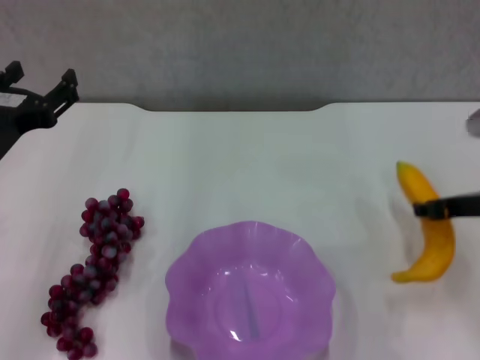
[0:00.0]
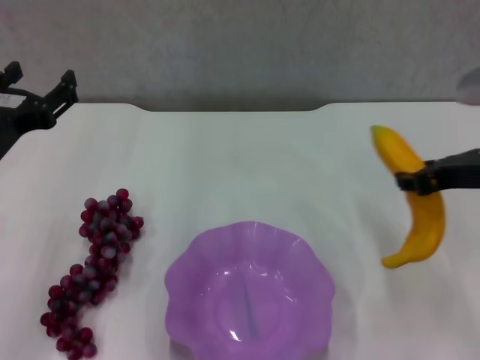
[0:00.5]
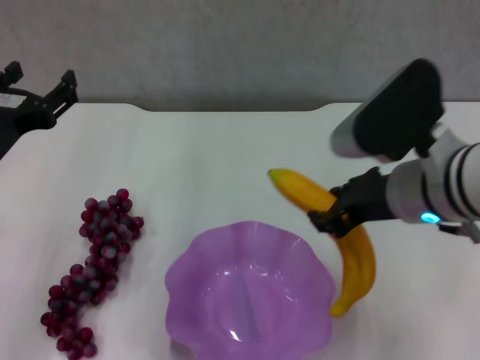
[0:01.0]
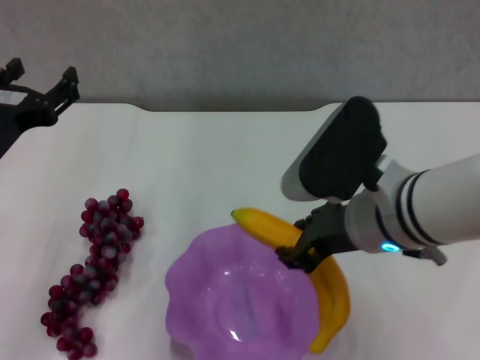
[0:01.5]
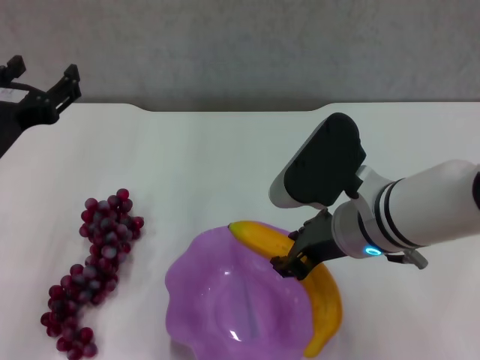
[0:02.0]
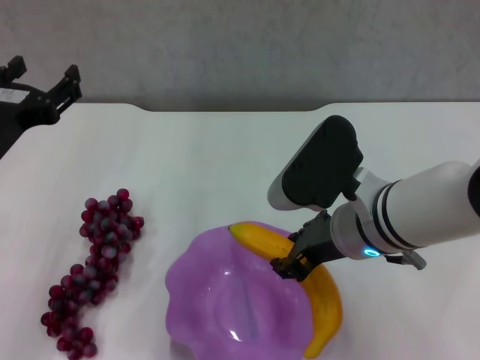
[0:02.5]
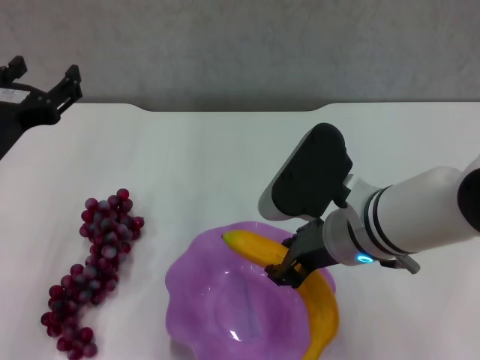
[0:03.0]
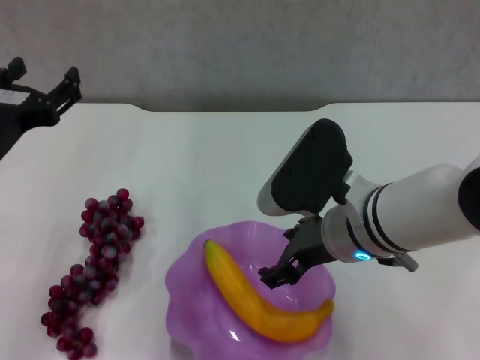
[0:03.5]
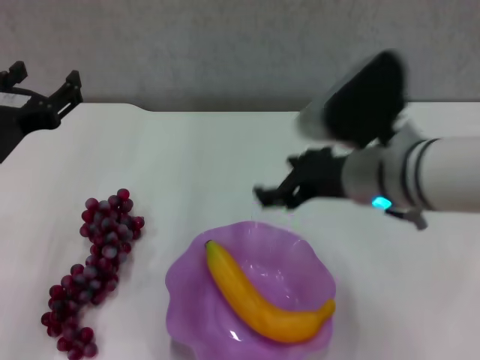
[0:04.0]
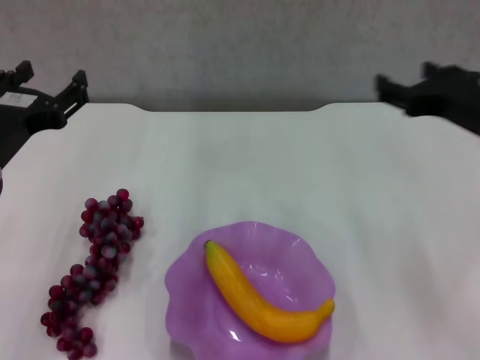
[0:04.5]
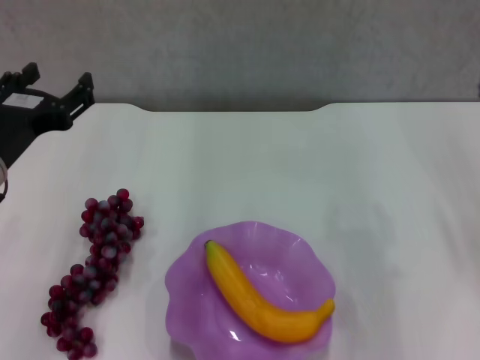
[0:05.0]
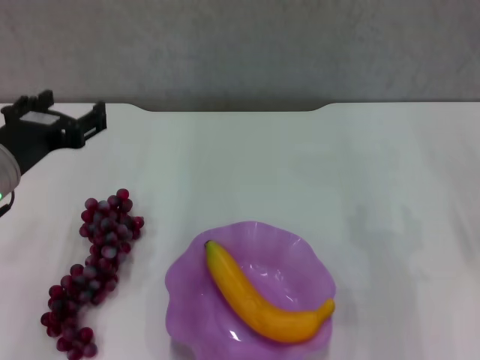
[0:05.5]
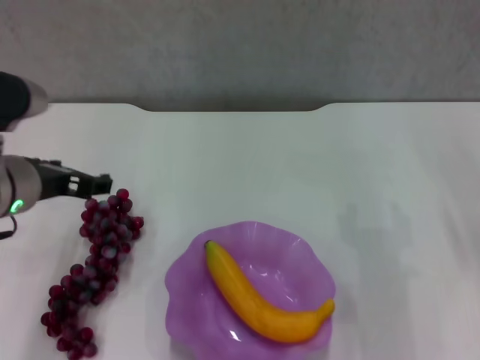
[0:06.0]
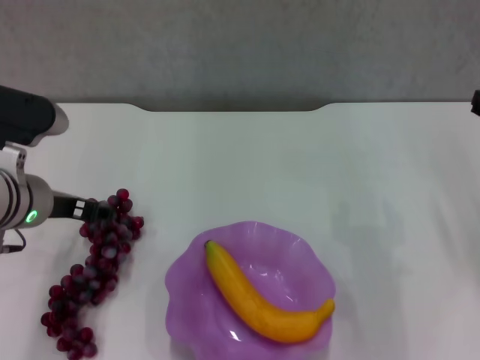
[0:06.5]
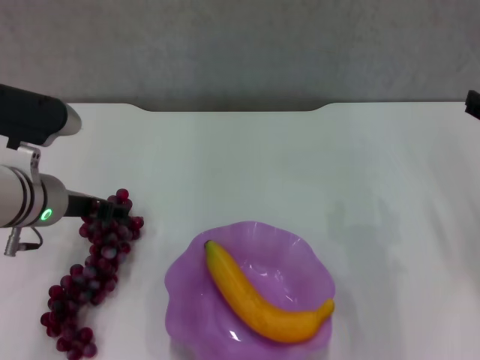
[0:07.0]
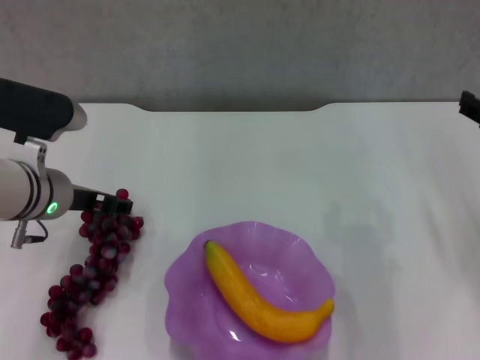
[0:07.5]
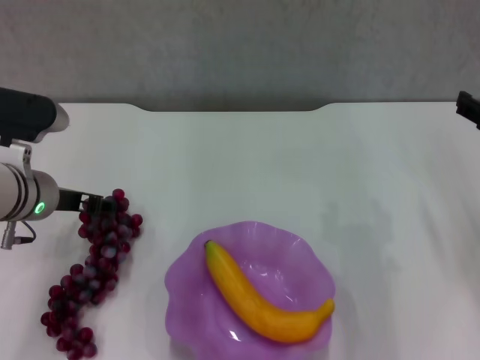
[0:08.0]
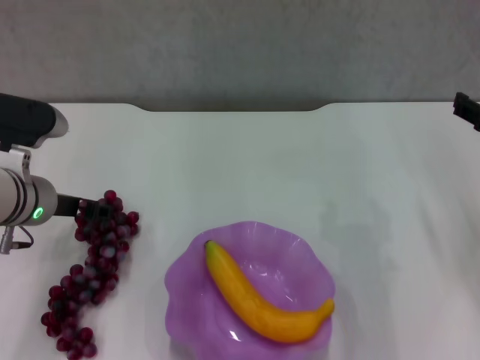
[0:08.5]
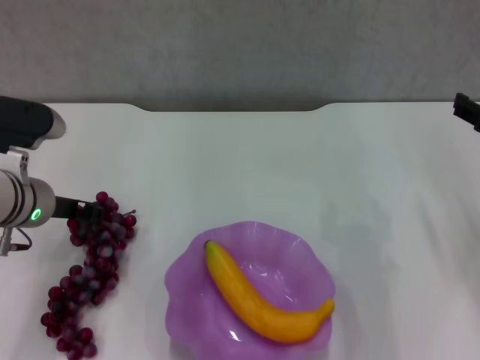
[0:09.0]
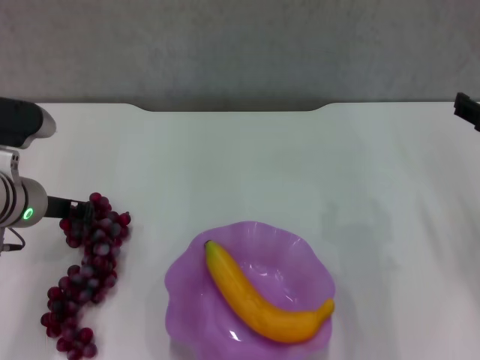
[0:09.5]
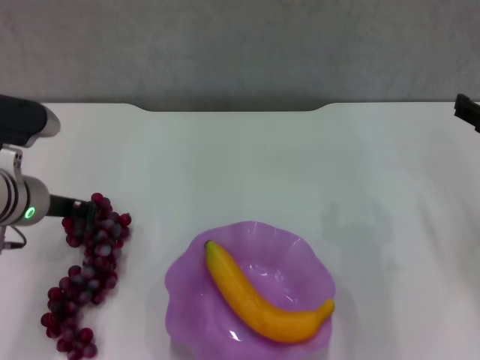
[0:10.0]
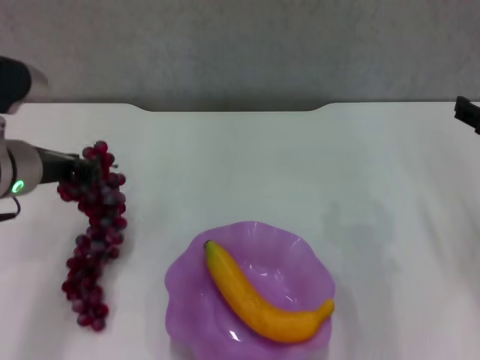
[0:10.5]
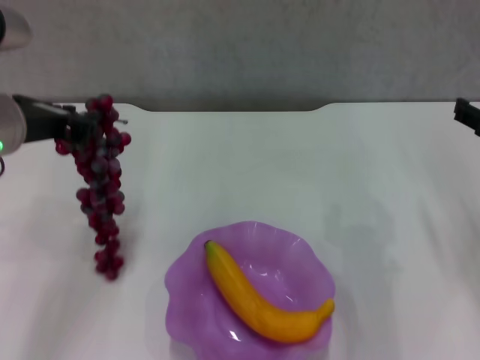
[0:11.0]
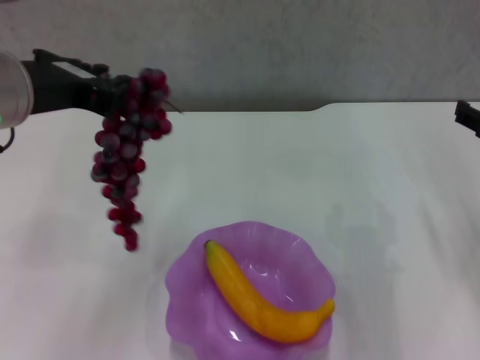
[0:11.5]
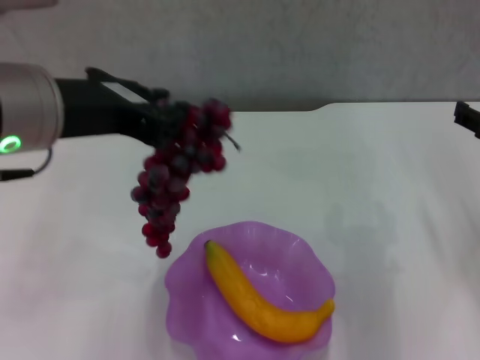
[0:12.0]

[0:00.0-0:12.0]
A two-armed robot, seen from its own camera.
Step, 0:00.0 to 0:03.0: Place the banana in the purple plate with right gripper.
Step, 0:04.0 to 0:09.5: Grasp the grape with left gripper.
0:00.0 to 0:02.0: The right gripper heads to the left, covering approximately 15 cm.
0:02.0 to 0:04.0: The right gripper opens its fingers.
0:04.0 to 0:06.0: The right gripper heads to the right, covering about 20 cm.
0:06.0 to 0:08.0: The left gripper is displaced downward by roughly 5 cm.
0:08.0 to 0:10.0: The left gripper closes its fingers.
0:10.0 to 0:12.0: The left gripper shifts some 20 cm upward, backward and to the right.

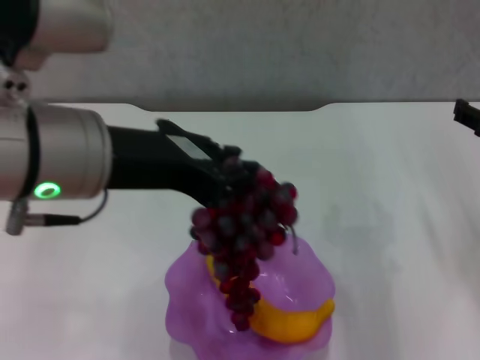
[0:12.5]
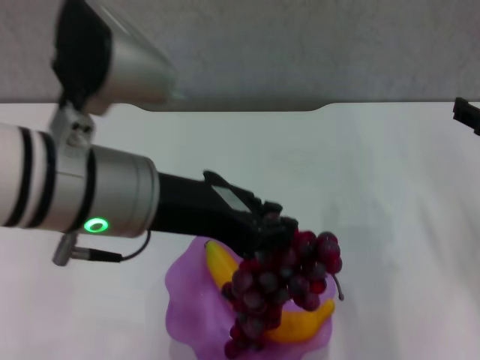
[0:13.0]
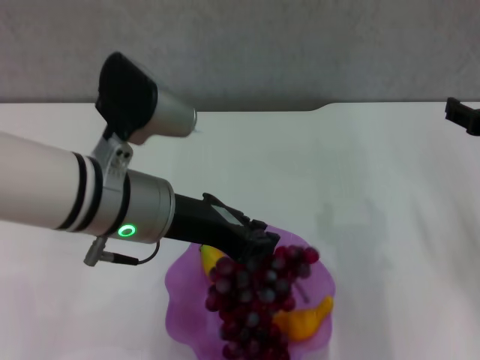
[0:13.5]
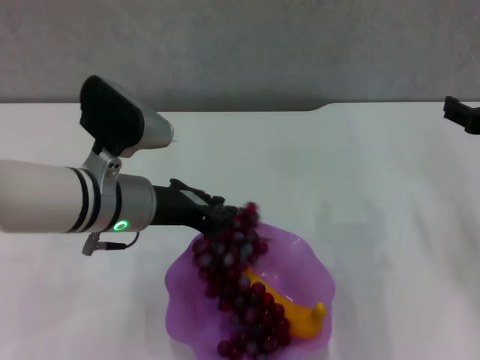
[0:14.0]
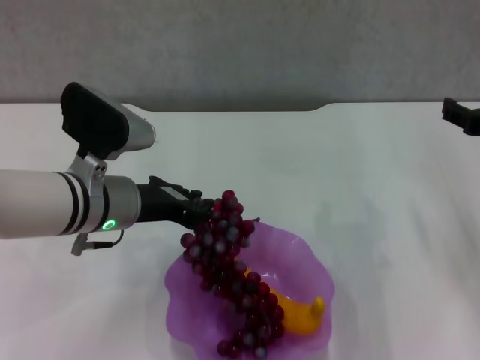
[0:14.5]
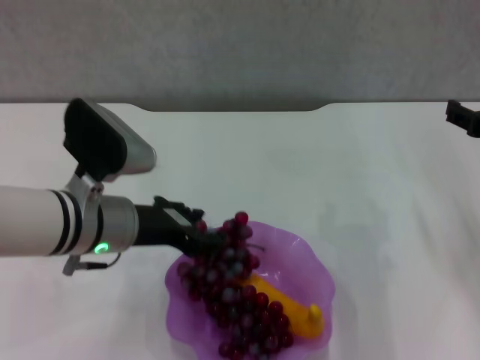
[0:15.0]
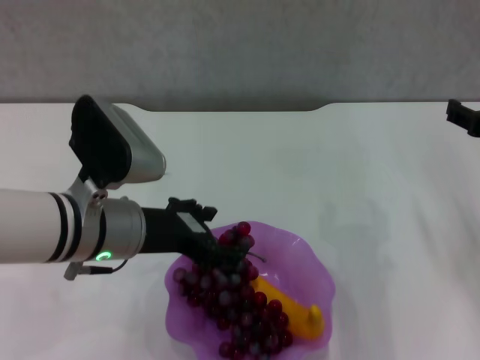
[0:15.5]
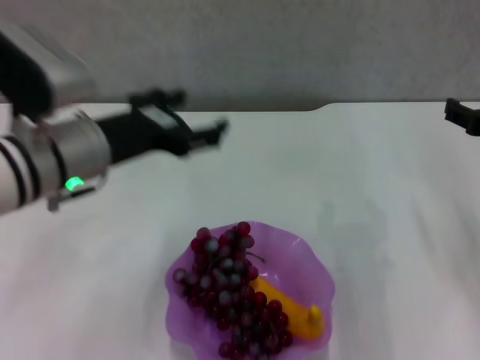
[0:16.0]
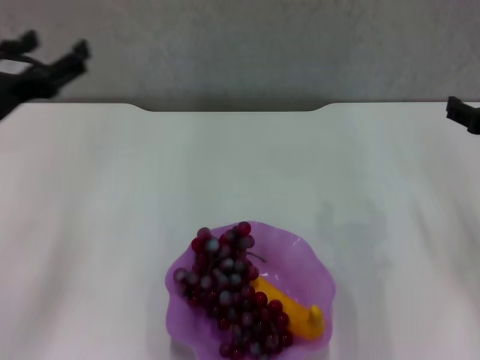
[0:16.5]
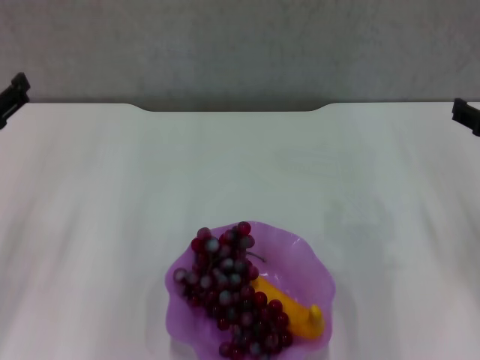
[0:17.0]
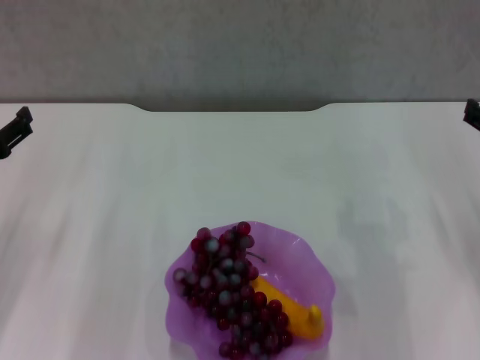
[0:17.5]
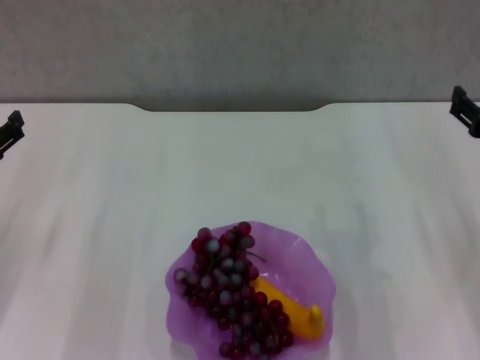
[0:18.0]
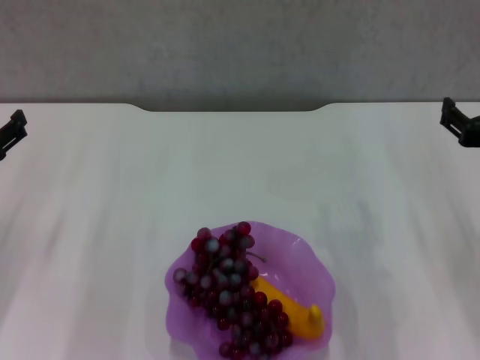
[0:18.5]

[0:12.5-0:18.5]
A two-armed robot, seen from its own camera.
Step, 0:12.5 to 0:15.5: Place the grape in the purple plate with left gripper.
0:12.5 to 0:14.5: The left gripper heads downward and forward, covering roughly 20 cm.
0:14.5 to 0:16.5: The left gripper shifts roughly 15 cm to the left and upward, and opens up.
0:16.5 to 0:18.5: The left gripper moves downward and to the left, roughly 10 cm.

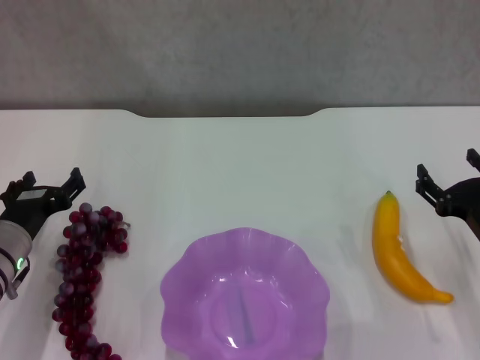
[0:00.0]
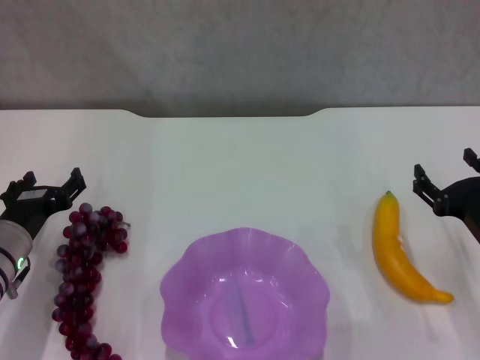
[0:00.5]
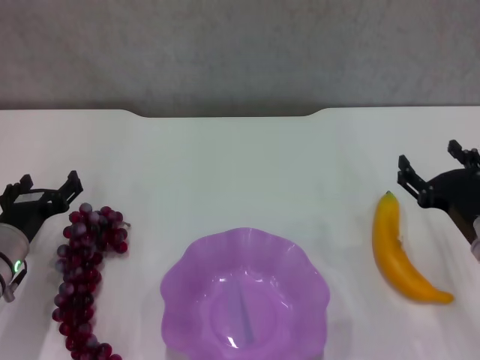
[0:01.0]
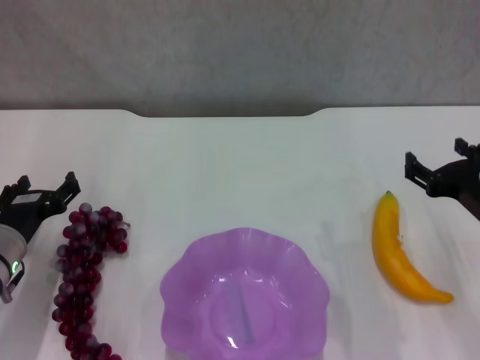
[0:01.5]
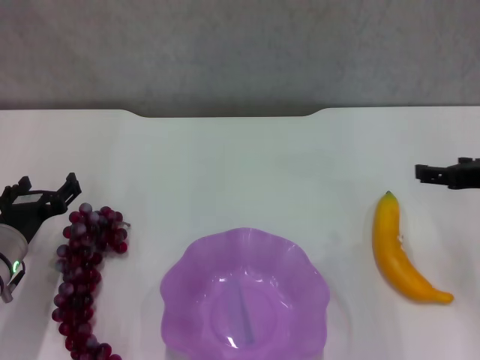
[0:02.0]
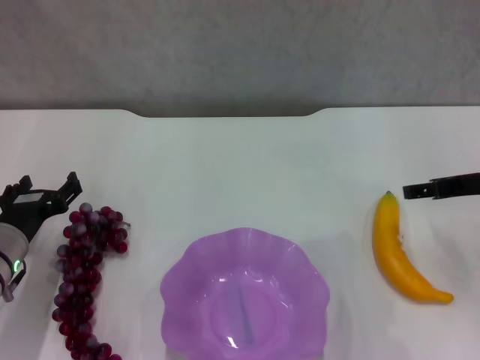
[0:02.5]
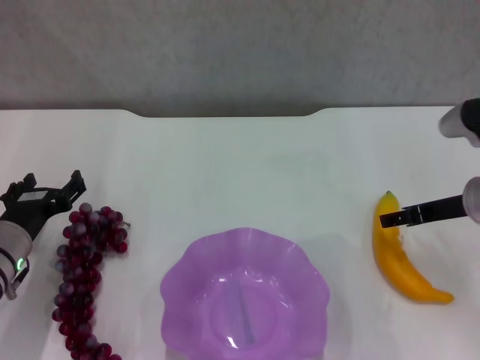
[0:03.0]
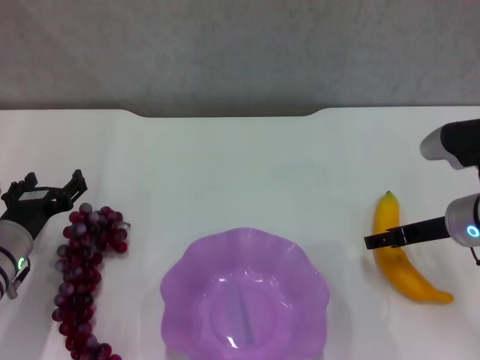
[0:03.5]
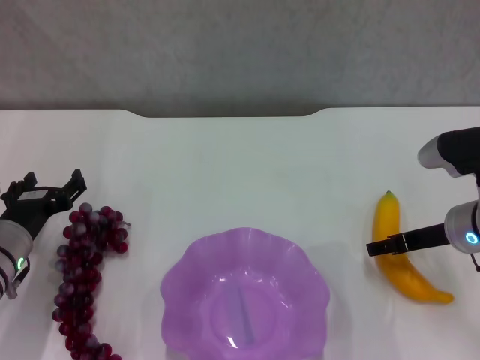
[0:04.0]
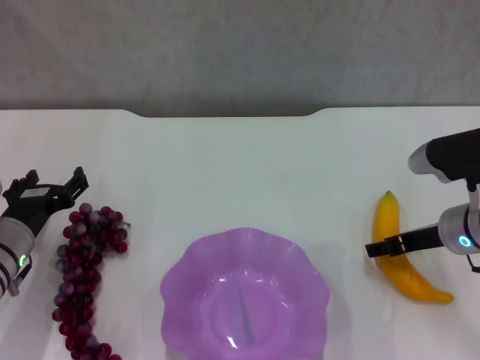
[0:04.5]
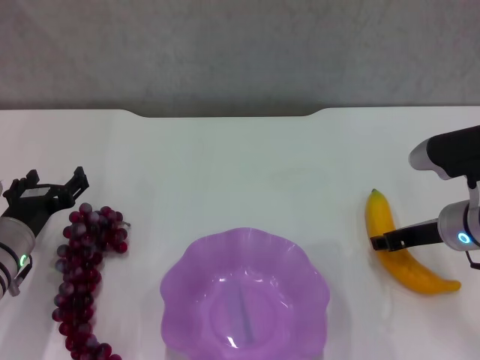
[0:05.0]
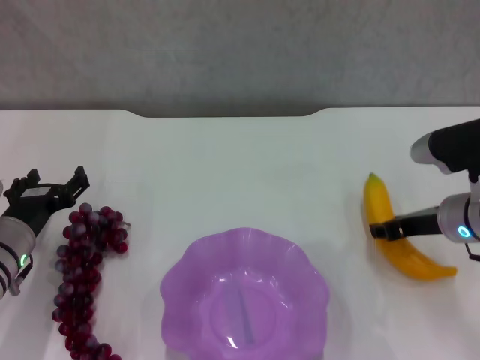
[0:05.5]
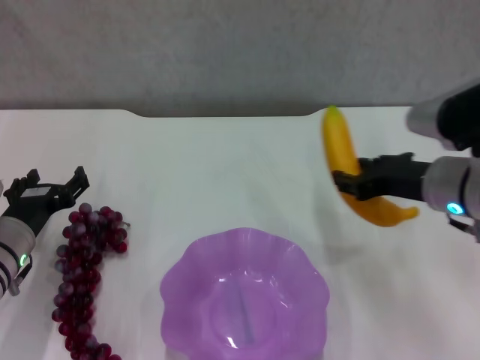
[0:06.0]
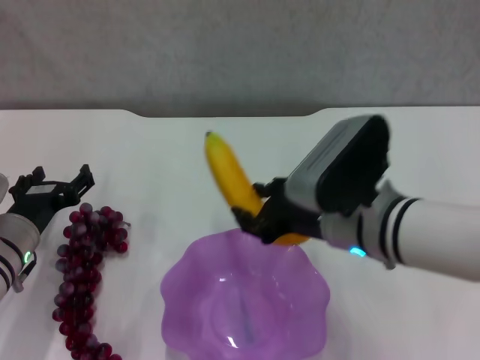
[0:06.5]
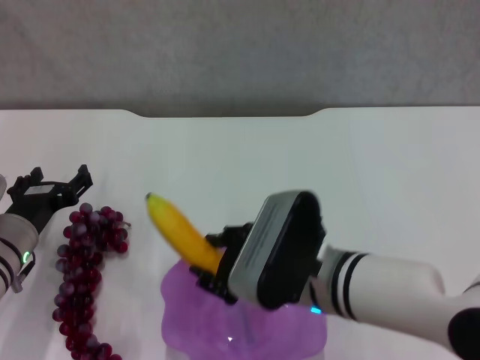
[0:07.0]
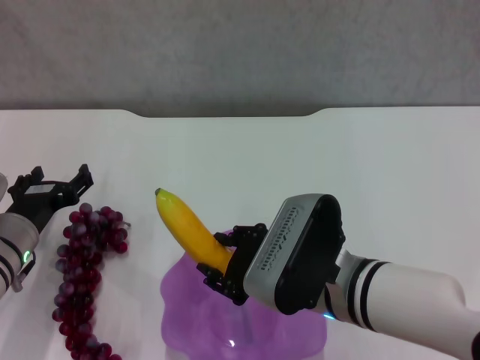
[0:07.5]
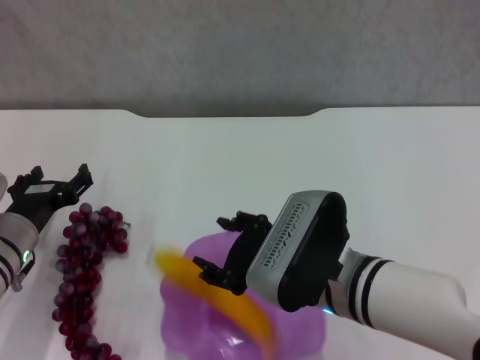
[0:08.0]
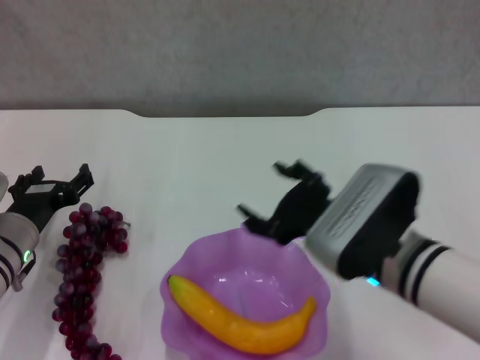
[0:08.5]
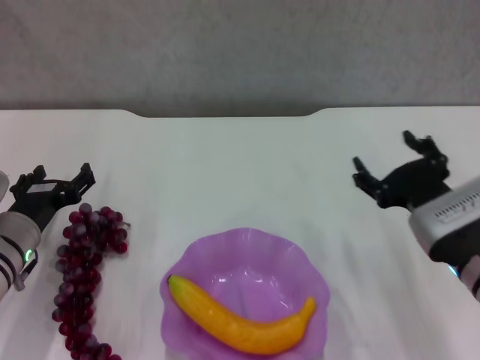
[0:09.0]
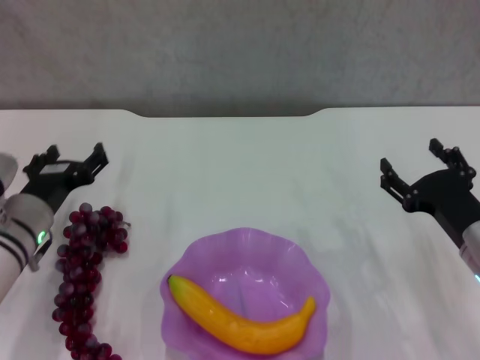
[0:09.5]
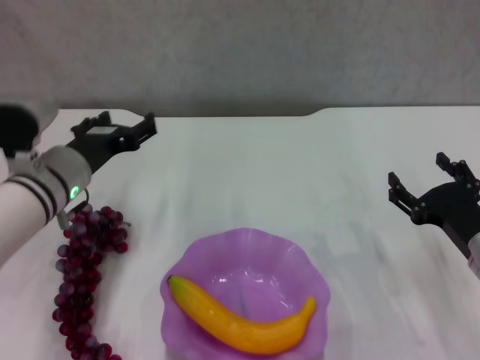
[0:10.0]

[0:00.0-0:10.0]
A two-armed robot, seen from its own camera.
Step, 0:00.0 to 0:04.5: Grasp the banana with right gripper.
Step, 0:05.0 to 0:08.0: Place the banana in the purple plate with right gripper.
0:00.0 to 0:02.0: The right gripper shifts approximately 10 cm upward.
0:02.0 to 0:04.0: The right gripper shifts about 5 cm downward.
0:04.0 to 0:06.0: The right gripper heads upward, covering roughly 5 cm, and closes up.
0:06.0 to 0:08.0: The right gripper moves to the left and backward, some 15 cm.
0:08.0 to 0:10.0: The right gripper goes roughly 20 cm to the right, and opens, while the left gripper is displaced upward and to the right by roughly 10 cm.
